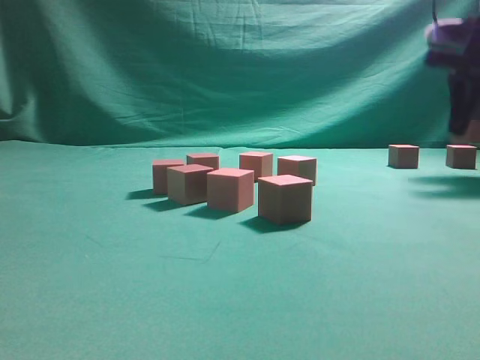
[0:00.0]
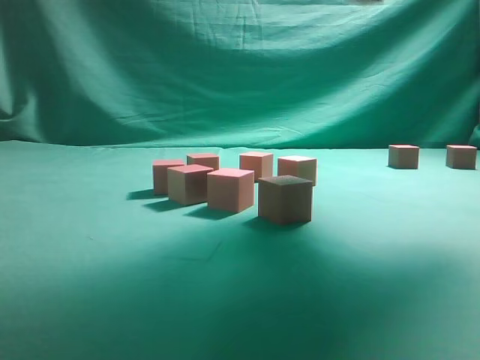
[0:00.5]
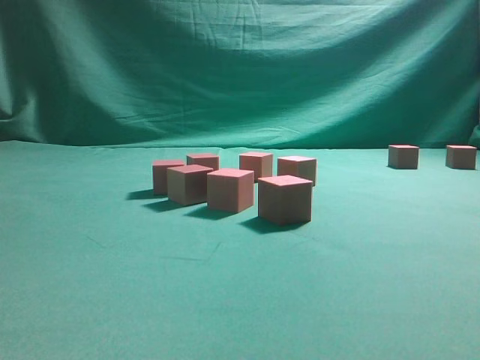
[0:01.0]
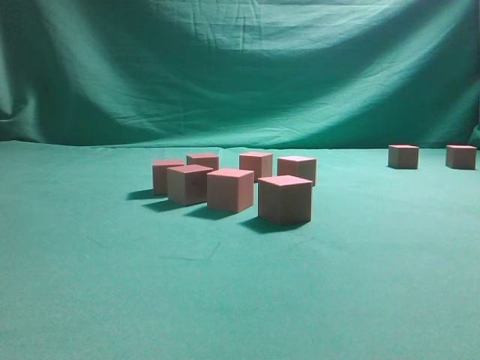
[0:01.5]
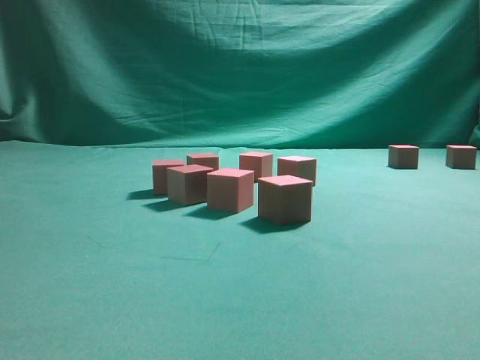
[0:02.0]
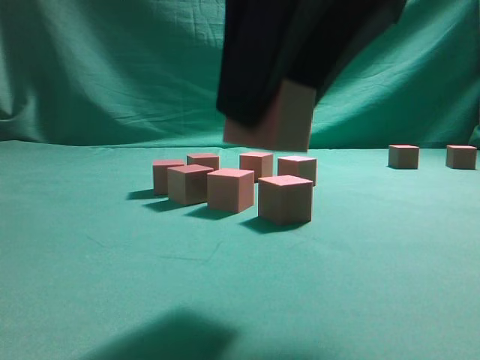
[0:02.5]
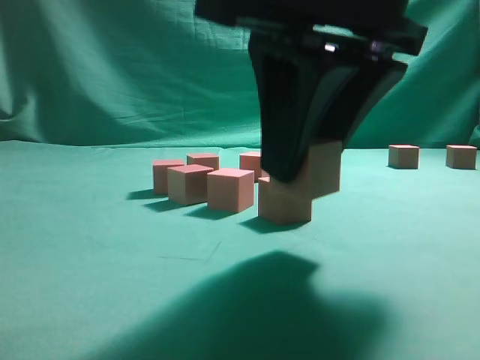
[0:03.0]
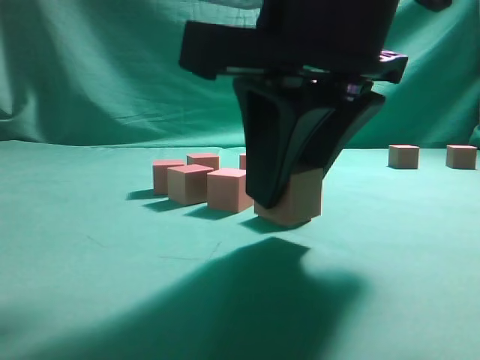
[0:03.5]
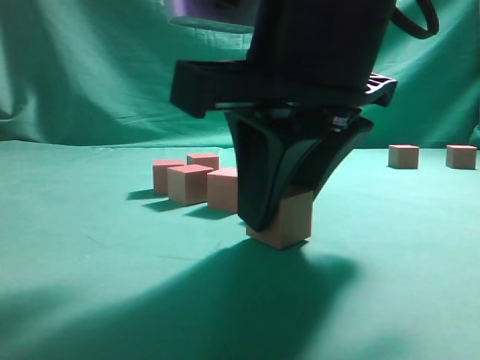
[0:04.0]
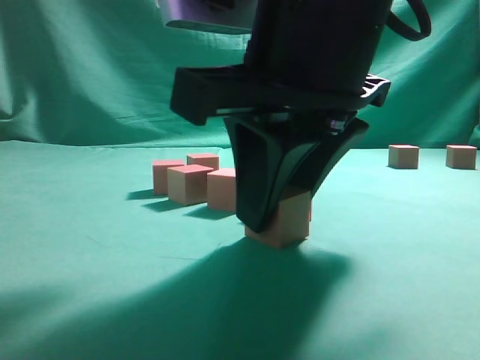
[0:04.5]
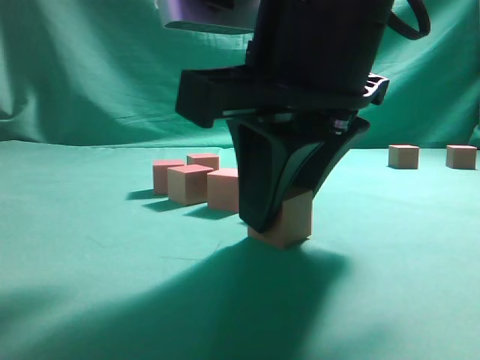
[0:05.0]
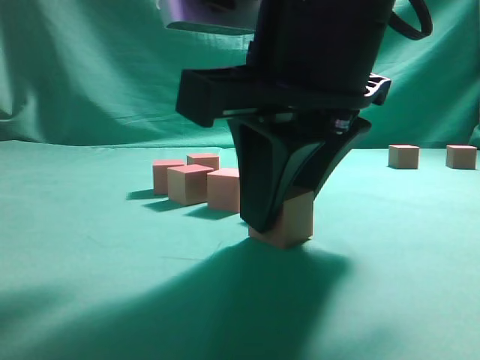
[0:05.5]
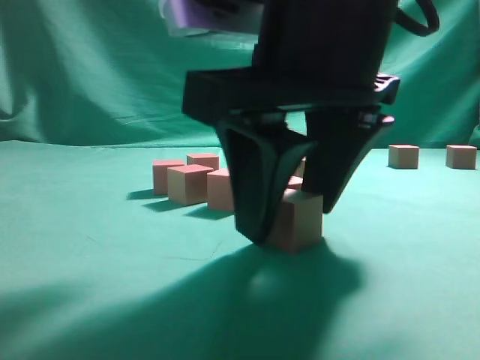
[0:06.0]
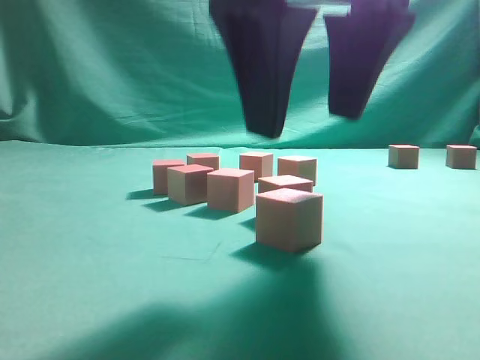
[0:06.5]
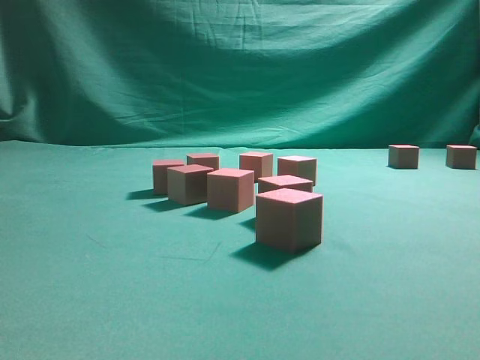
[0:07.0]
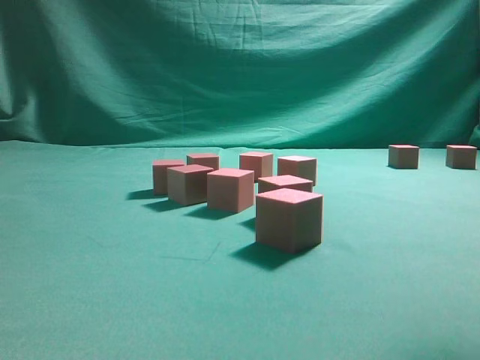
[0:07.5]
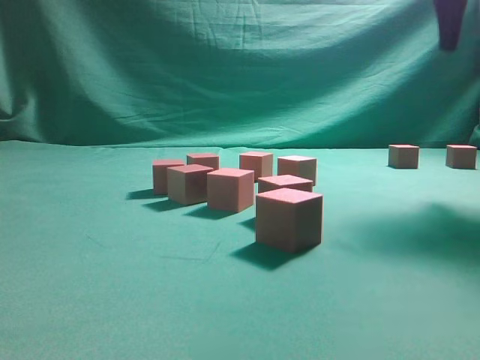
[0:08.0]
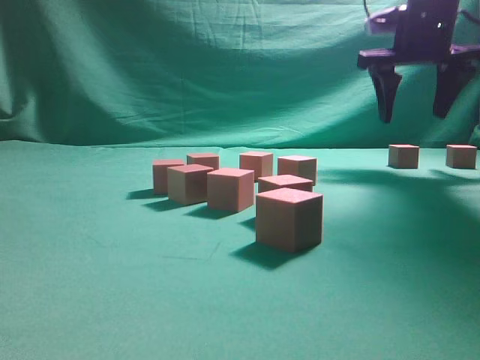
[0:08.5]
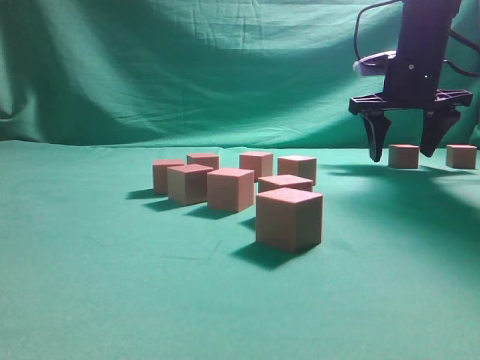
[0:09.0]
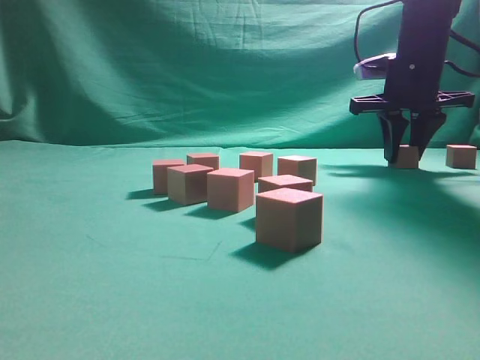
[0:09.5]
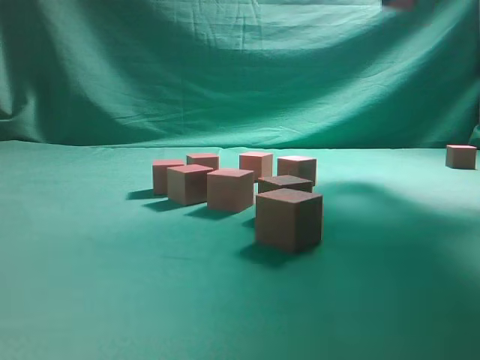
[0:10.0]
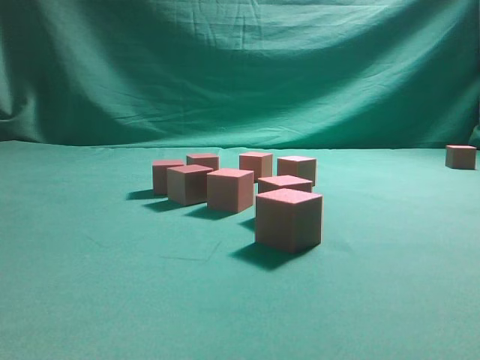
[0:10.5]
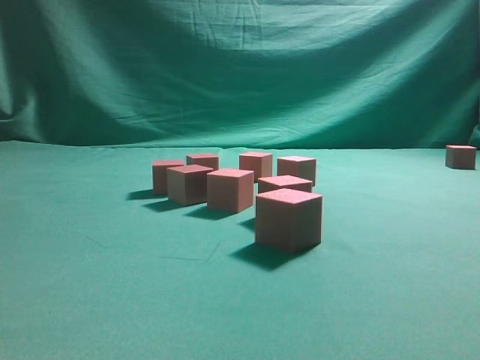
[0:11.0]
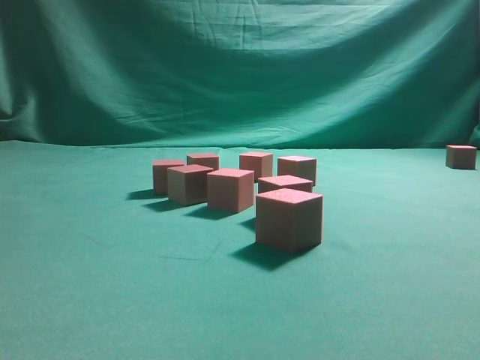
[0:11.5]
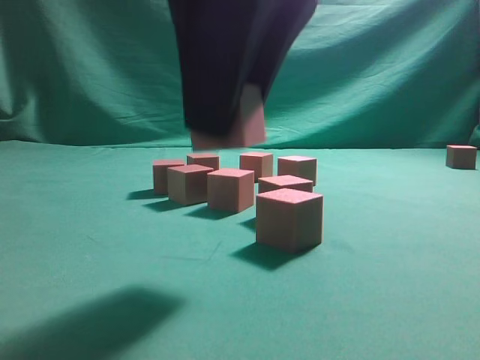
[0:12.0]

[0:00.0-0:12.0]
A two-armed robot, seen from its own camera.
Task of the whole recording: pick up the multiple cubes in two columns one by one and place them in another position on the table.
Step, 0:00.5 to 0:06.5: Place the block at the correct position to assemble the letter S.
Step, 0:07.0 to 0:09.5: Pick up the block on the table.
0:00.0 to 0:02.0: The right gripper travels backward and to the left by some 35 cm.
0:02.0 to 0:04.0: The right gripper is displaced downward and to the left by approximately 15 cm.
0:04.0 to 0:06.0: The right gripper opens.
0:06.0 to 0:08.0: The right gripper is displaced to the right, forward and upward by approximately 30 cm.
0:08.0 to 0:10.0: The right gripper moves upward and forward, approximately 10 cm, and closes.
0:10.0 to 0:12.0: The right gripper moves backward, to the left and downward, approximately 35 cm.

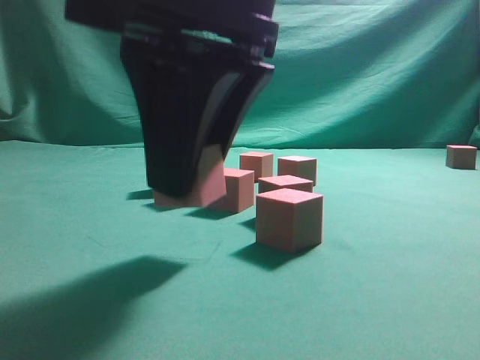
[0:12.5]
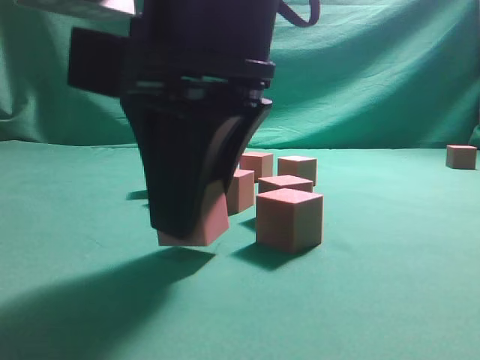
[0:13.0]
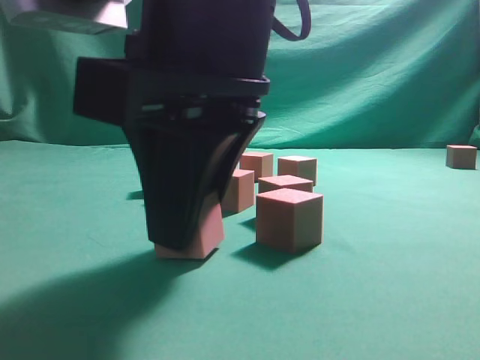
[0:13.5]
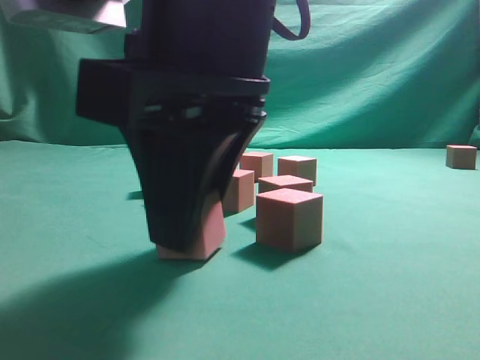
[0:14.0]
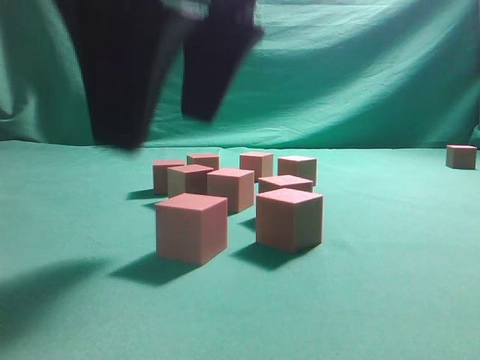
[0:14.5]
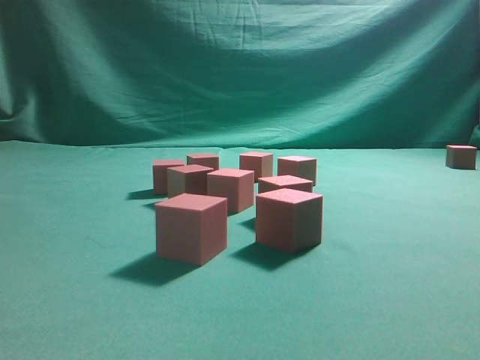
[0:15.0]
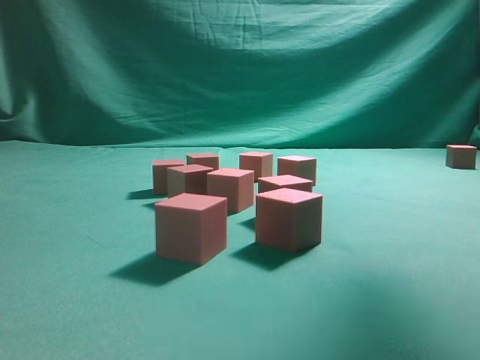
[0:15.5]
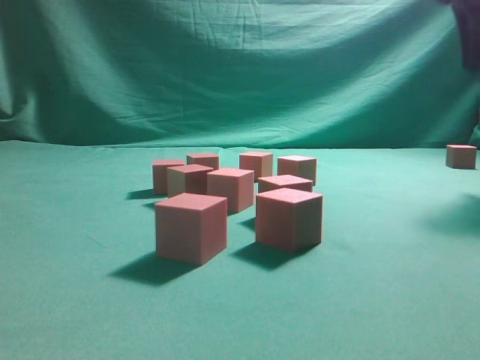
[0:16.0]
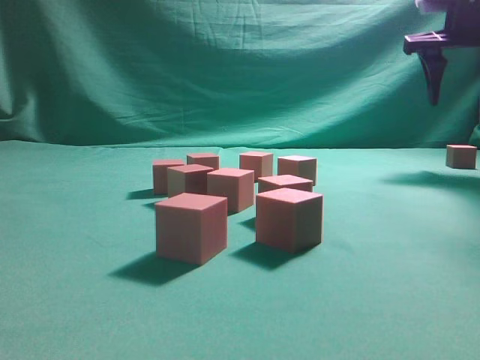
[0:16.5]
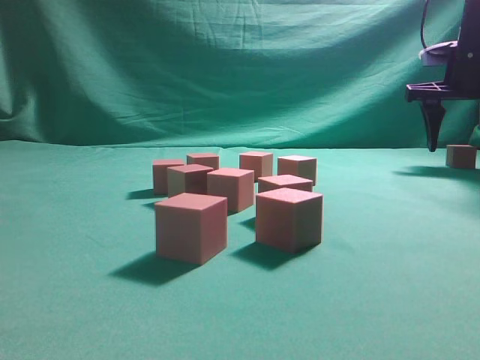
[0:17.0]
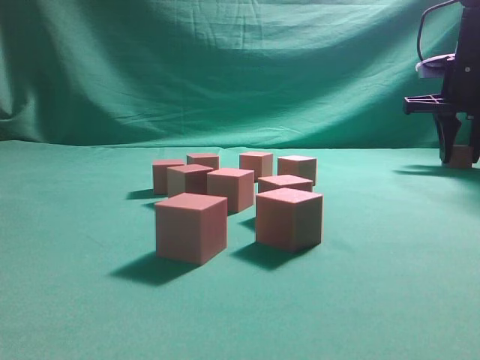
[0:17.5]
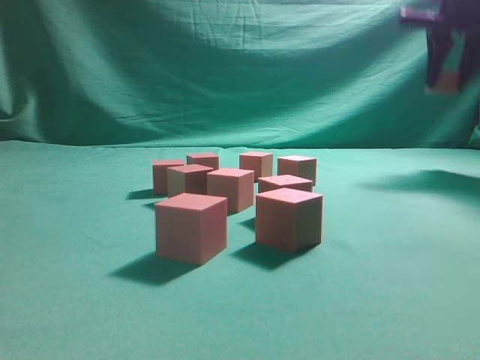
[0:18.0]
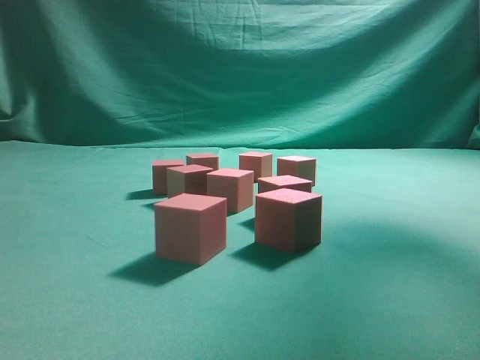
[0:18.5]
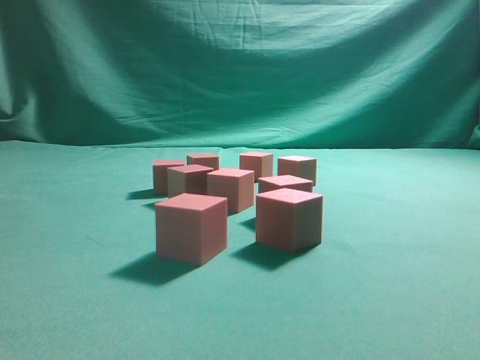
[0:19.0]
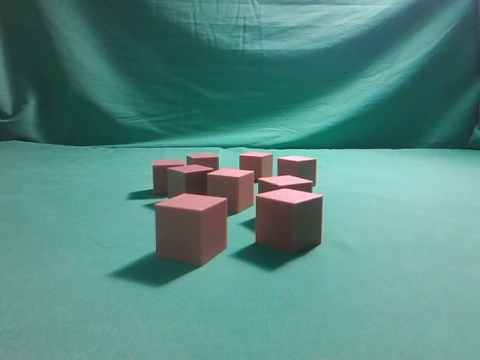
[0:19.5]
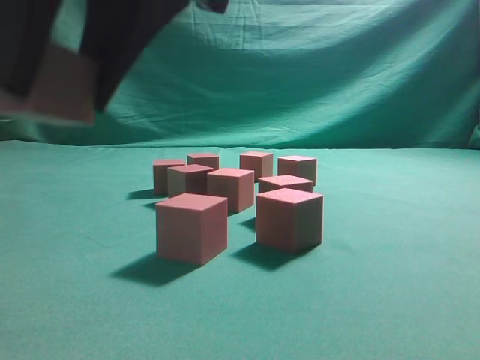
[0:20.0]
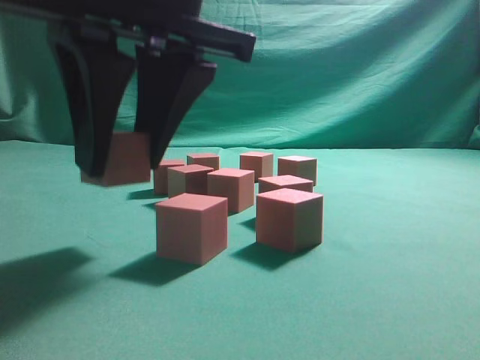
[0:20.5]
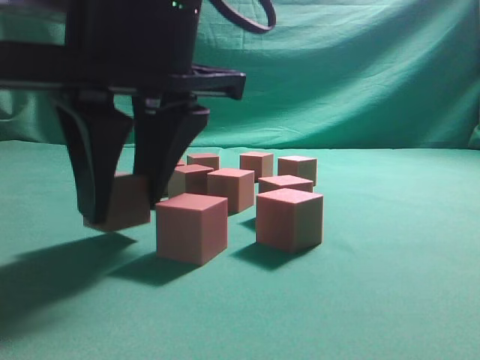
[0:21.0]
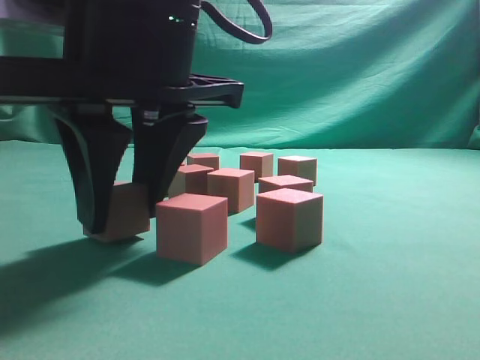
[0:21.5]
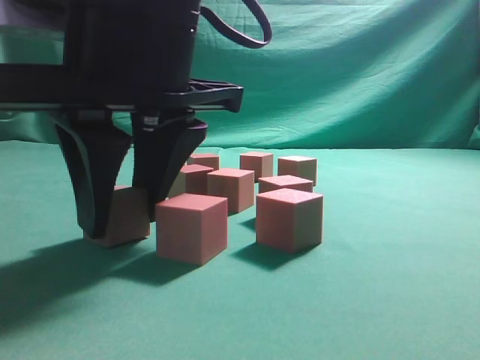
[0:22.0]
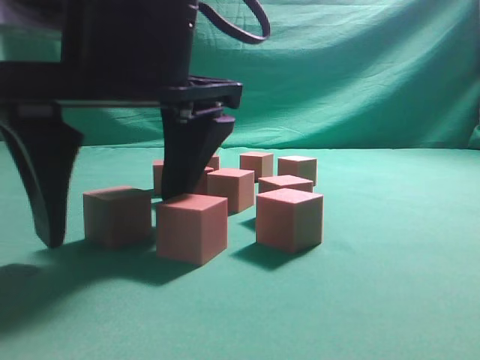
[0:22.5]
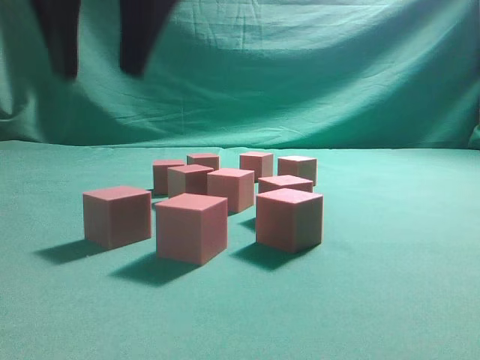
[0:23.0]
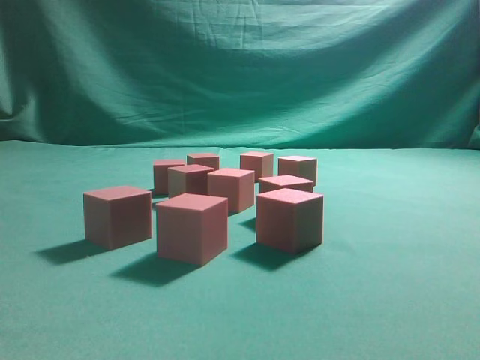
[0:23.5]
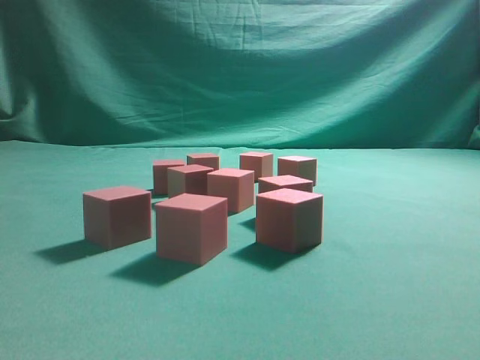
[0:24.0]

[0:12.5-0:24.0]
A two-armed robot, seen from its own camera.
Task of the whole recording: pick up the multiple cubes in two columns one by one and place them in another position on the table.
Step, 0:12.5 to 0:14.5: Place the block at the correct position to assemble the letter S.
Step, 0:15.0 to 0:17.5: Pick up the block on the table.
Step, 0:18.0 to 0:23.0: Place the block at the correct position to assemble the letter S.
0:12.5 to 0:14.5: The right gripper opens its fingers.
0:14.5 to 0:16.5: The right gripper moves forward and to the right, roughly 40 cm.
0:16.5 to 0:18.5: The right gripper goes approximately 20 cm upward and backward, and closes its fingers.
0:18.5 to 0:20.0: The right gripper moves to the left, backward and downward, approximately 35 cm.
0:20.0 to 0:22.0: The right gripper shifts some 5 cm downward.
0:22.0 to 0:24.0: The right gripper moves upward, approximately 35 cm, and closes its fingers.
